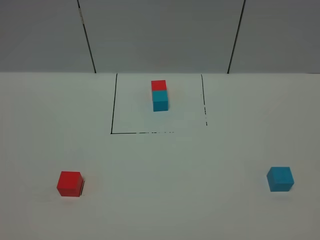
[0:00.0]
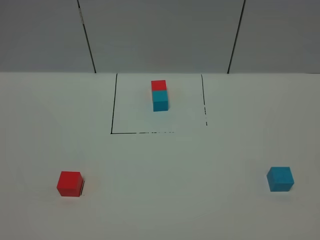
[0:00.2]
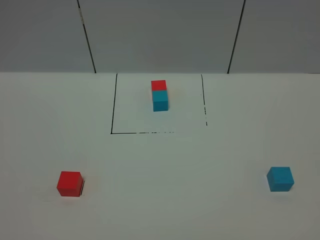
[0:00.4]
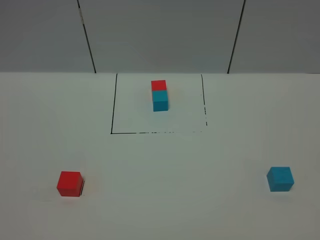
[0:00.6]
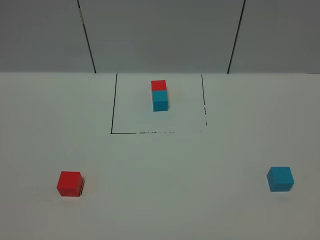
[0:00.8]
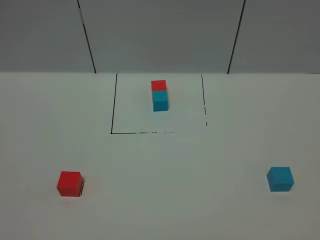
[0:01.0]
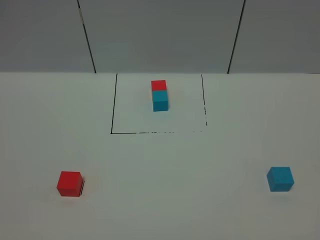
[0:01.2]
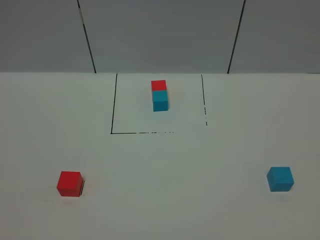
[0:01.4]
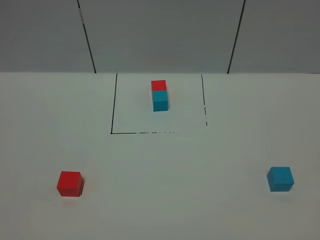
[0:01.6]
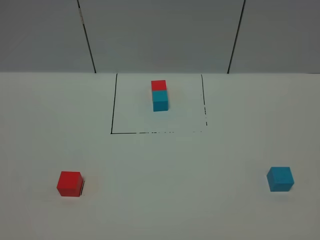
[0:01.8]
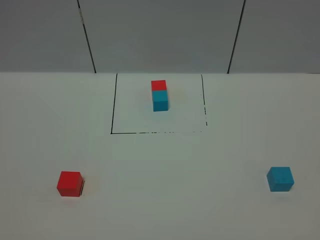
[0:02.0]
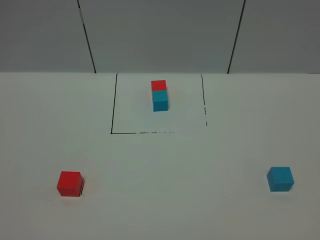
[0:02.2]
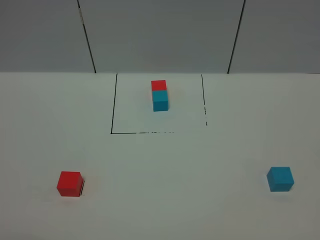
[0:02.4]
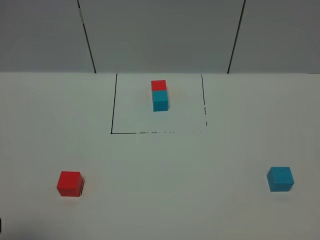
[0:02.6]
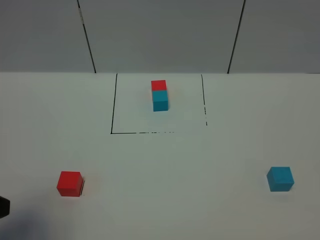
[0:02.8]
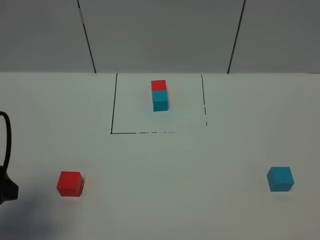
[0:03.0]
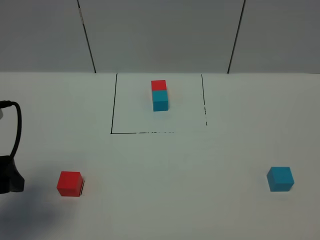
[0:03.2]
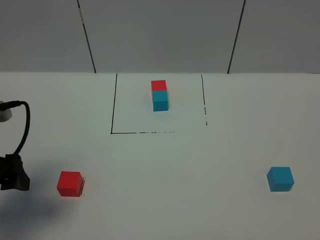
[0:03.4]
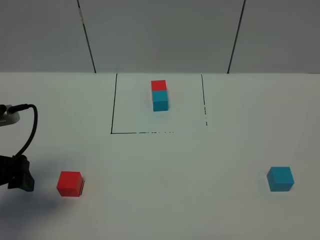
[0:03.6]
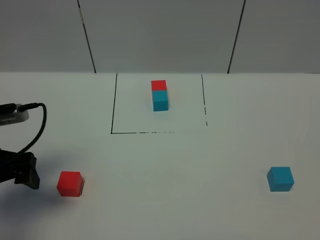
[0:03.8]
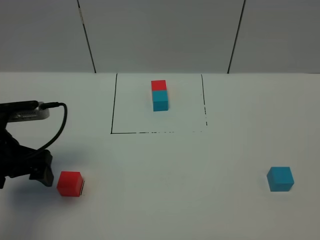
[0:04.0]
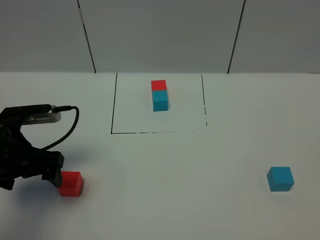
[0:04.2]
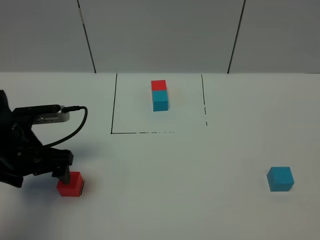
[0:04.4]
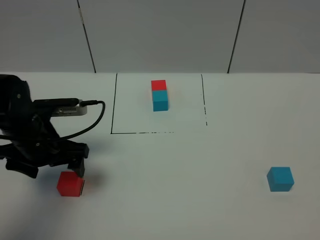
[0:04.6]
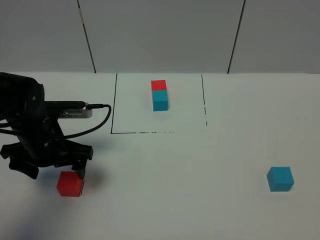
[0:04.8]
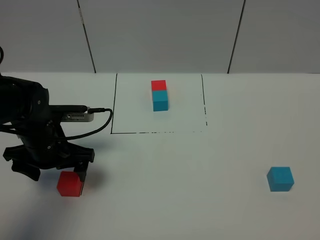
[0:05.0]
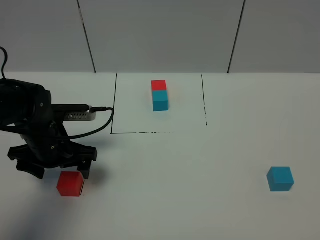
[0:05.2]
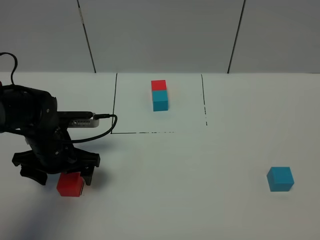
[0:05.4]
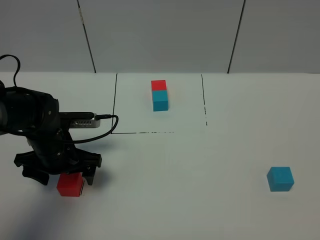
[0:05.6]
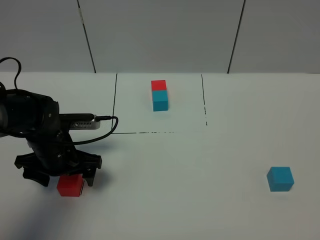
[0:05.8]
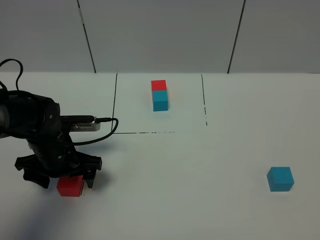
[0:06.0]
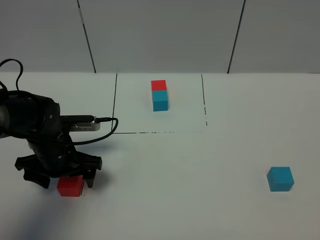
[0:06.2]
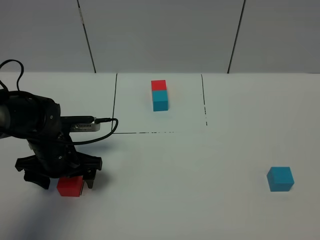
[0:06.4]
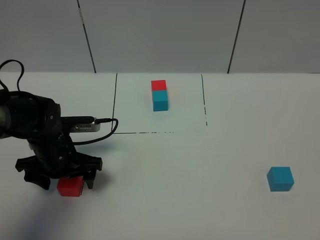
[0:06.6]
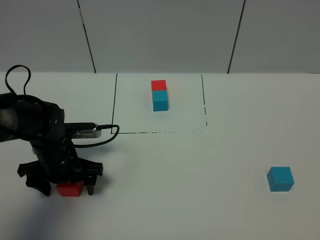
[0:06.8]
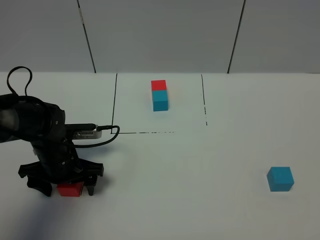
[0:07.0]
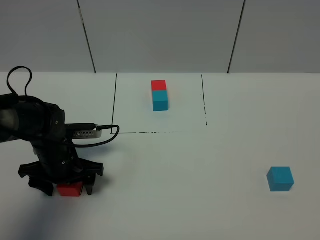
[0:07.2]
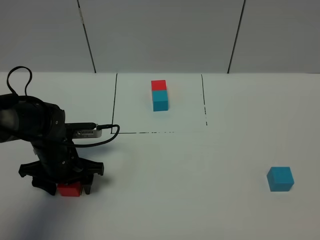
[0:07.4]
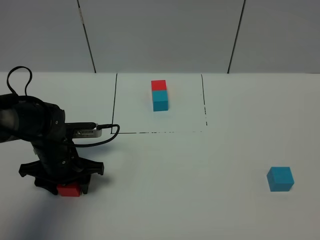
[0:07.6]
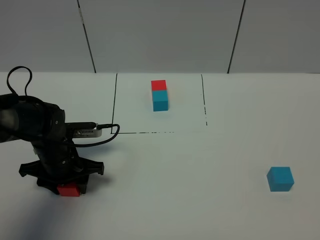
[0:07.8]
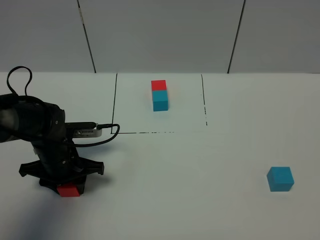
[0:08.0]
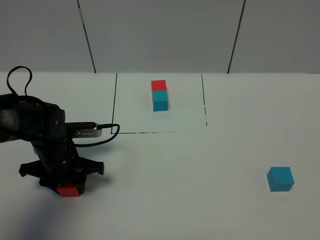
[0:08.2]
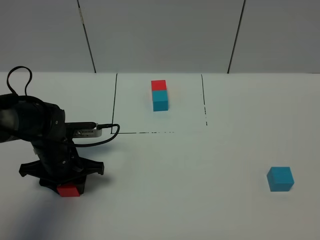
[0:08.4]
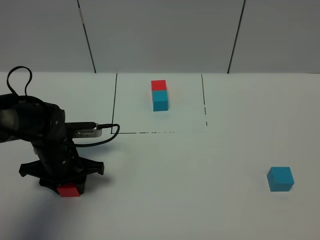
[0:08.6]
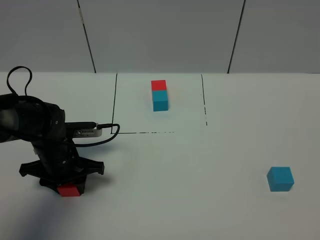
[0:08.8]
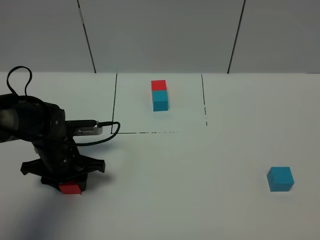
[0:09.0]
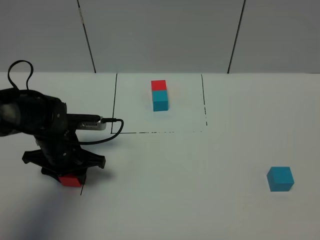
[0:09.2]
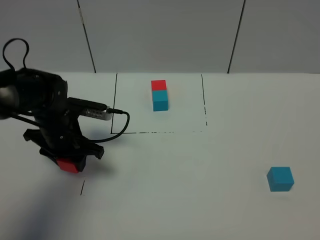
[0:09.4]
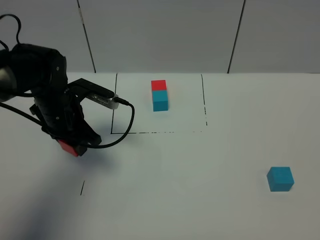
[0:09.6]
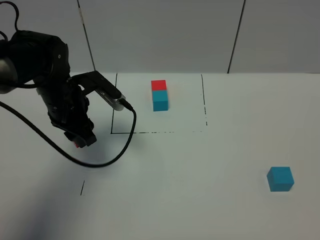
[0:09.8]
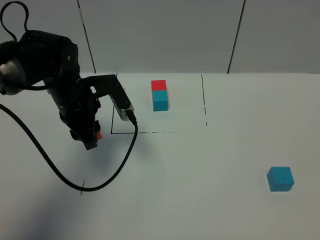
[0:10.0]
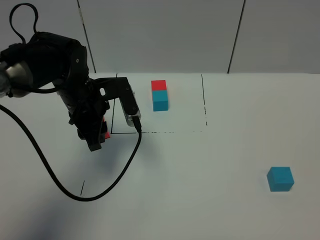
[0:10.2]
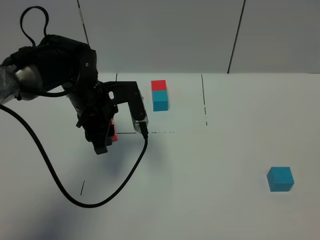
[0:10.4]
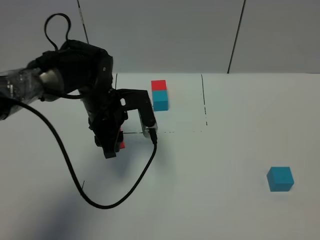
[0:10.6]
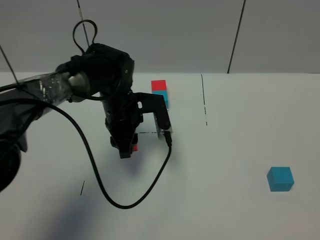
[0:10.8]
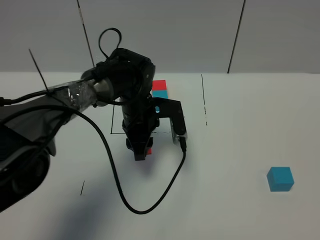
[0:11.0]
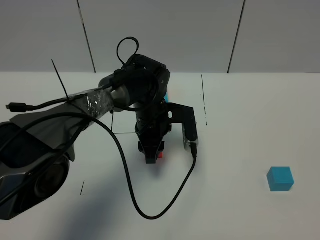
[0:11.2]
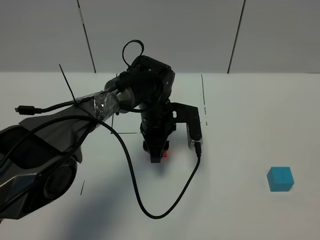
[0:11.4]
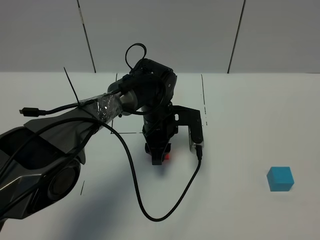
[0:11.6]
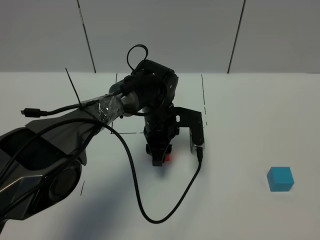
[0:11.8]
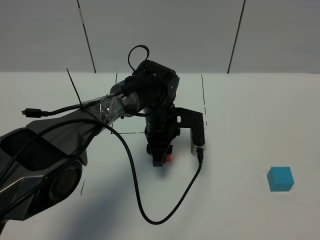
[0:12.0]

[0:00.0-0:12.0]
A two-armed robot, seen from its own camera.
Task of the whole recording: According to the building block template in front, assemble the scattered blocks together.
0:00.0 to 0:01.6: Both grippers stay put.
0:01.6 to 0:03.0: The left gripper is displaced forward by some 20 cm, and opens up.
0:03.0 to 0:04.4: The left gripper travels forward and downward by about 15 cm.
0:04.4 to 0:06.0: The left gripper goes roughly 5 cm downward.
0:06.0 to 0:07.6: The left gripper closes up.
0:07.6 to 0:09.0: Both grippers stay about where they are.
0:09.0 to 0:10.4: The left gripper shifts roughly 10 cm upward and to the right.
0:10.4 to 0:12.0: The left gripper goes approximately 15 cm to the right and downward.

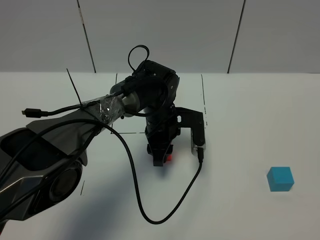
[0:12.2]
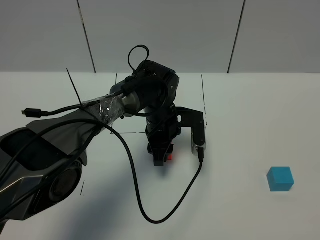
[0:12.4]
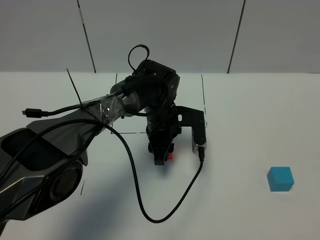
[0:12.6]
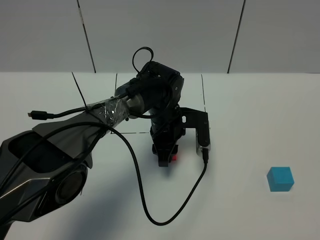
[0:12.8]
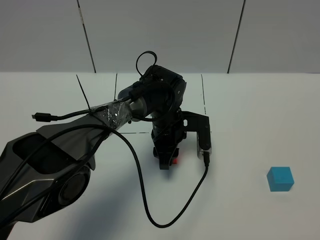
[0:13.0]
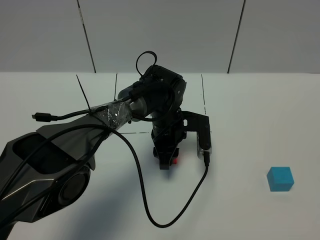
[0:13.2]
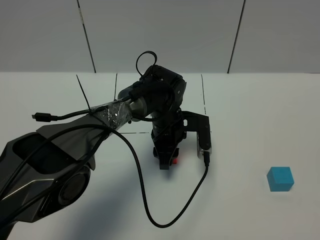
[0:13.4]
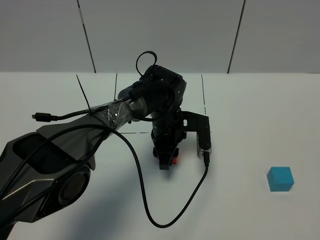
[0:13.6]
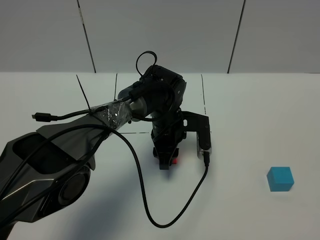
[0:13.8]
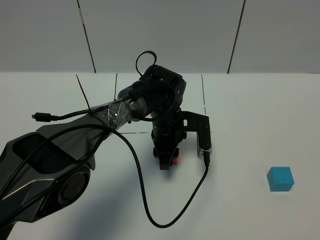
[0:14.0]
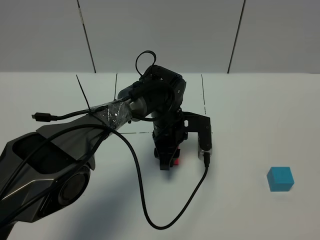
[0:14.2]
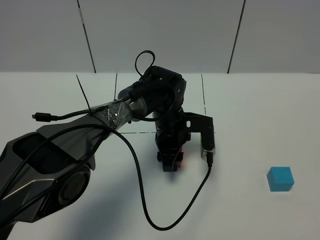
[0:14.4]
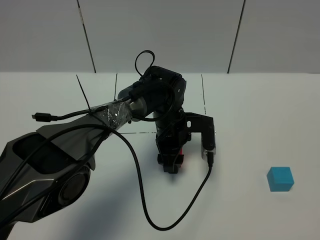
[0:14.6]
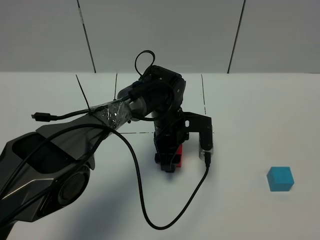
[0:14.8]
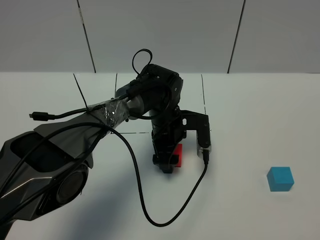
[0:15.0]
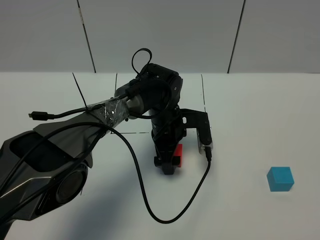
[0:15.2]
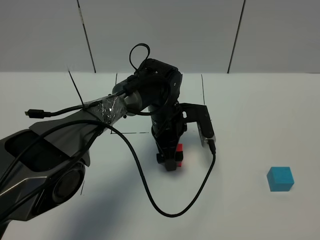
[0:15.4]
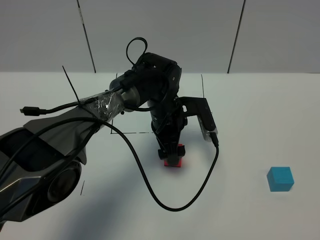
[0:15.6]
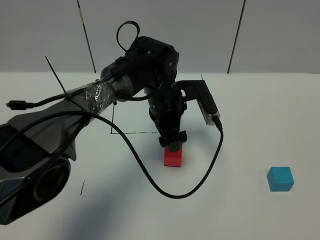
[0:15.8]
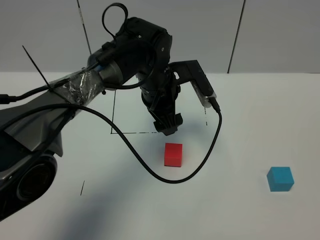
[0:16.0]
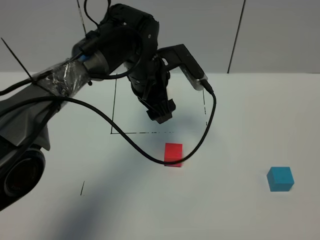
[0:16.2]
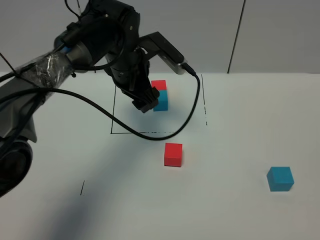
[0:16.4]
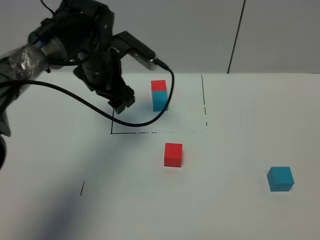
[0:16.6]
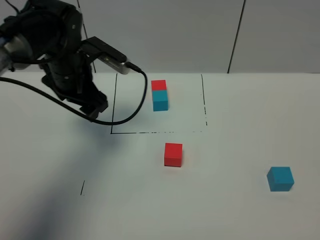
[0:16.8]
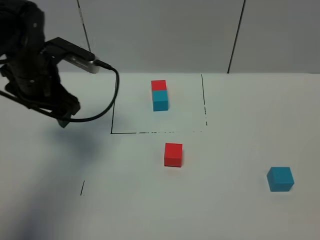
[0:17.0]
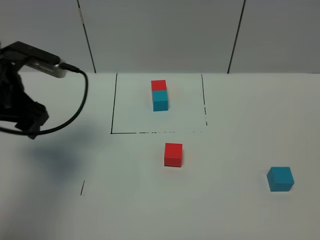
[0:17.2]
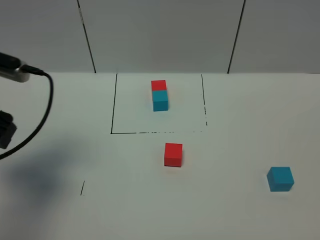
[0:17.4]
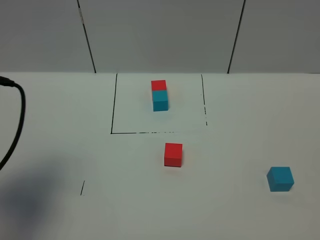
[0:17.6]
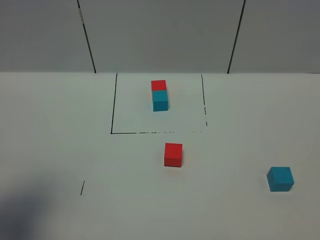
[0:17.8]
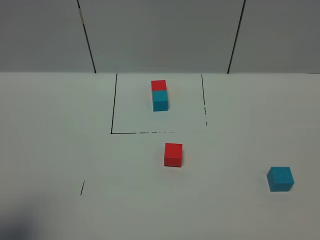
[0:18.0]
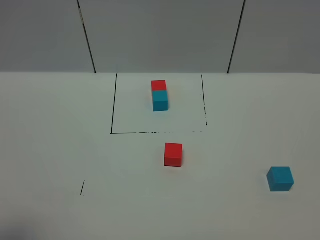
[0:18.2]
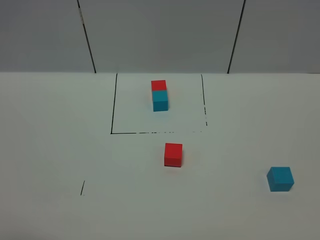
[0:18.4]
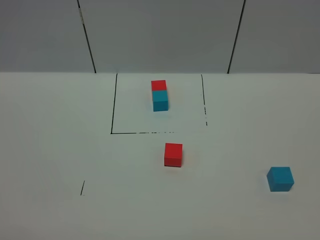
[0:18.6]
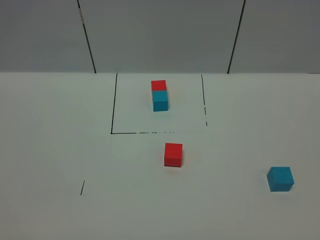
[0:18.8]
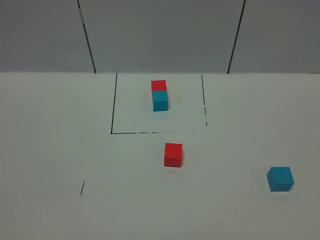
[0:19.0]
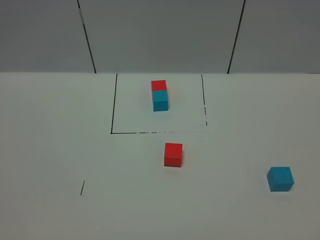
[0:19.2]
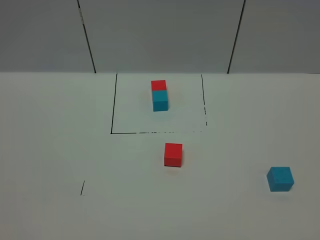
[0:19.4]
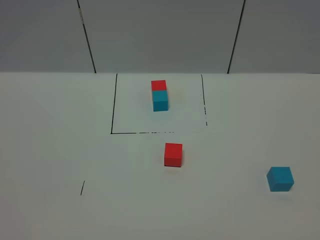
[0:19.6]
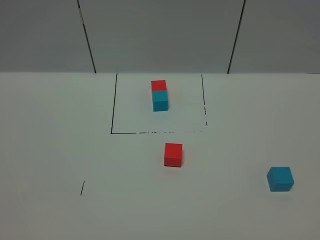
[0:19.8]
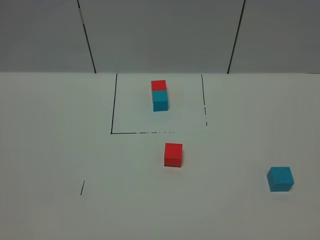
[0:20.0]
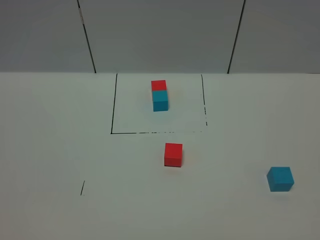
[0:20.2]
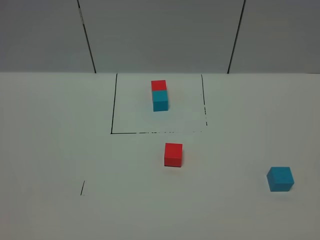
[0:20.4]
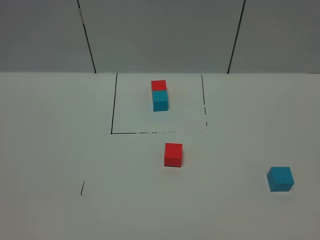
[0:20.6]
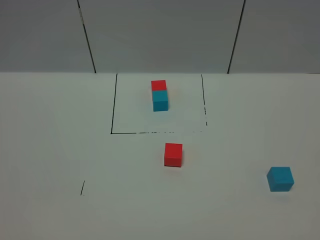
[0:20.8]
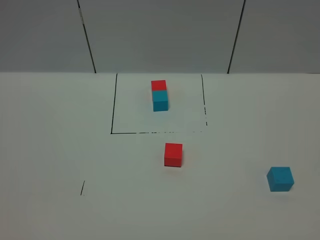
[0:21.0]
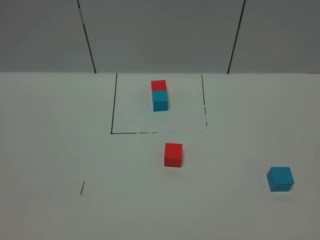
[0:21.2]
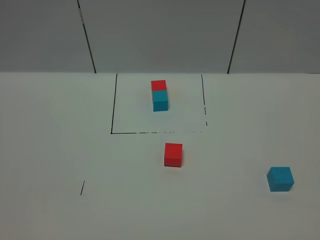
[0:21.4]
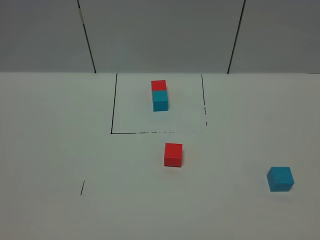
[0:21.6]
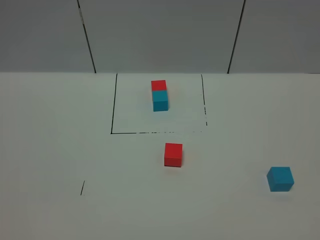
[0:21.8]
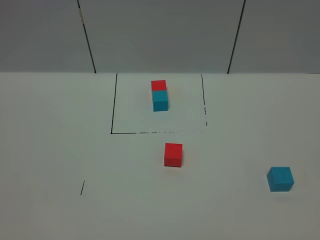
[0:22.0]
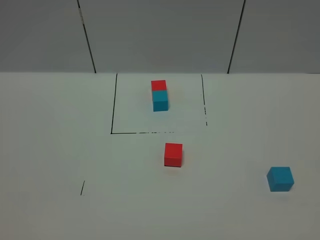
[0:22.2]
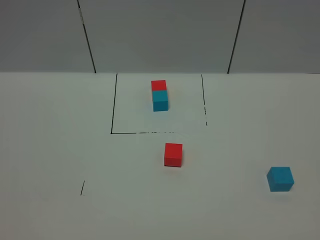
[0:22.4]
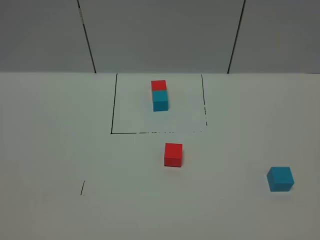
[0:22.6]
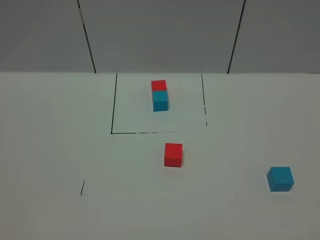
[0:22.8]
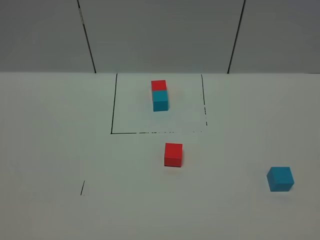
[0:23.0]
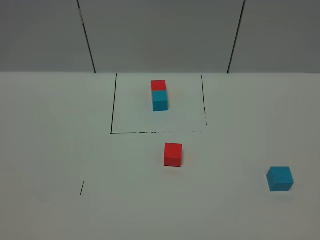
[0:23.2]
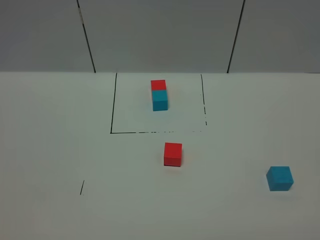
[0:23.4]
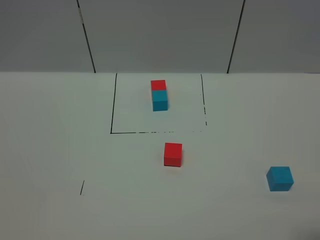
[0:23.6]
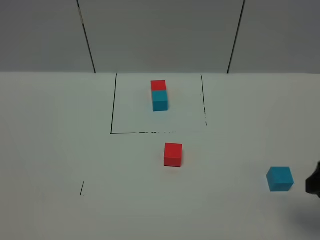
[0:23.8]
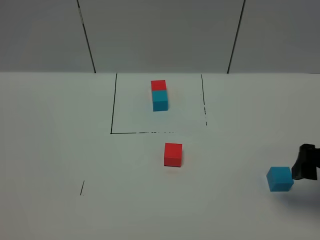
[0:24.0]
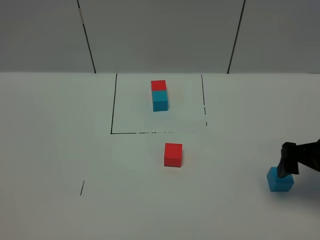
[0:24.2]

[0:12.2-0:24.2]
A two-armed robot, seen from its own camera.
Task of the whole recording: According to the building block template in front, assemble the scattered blocks together.
Step, 0:12.2 to 0:15.2: Put the red cube in the center of the table.
0:12.2 to 0:13.8: The grippers make only small movements.
0:13.8 to 0:15.2: The left gripper opens.
0:15.2 to 0:16.6: The left gripper is displaced upward and to the left by some 20 cm.
0:16.6 to 0:18.2: The left gripper is displaced backward and to the left by approximately 40 cm.
0:19.8 to 0:22.6: Both grippers stay about where they are.
0:22.6 to 0:24.2: The right gripper heads forward, covering approximately 25 cm.
